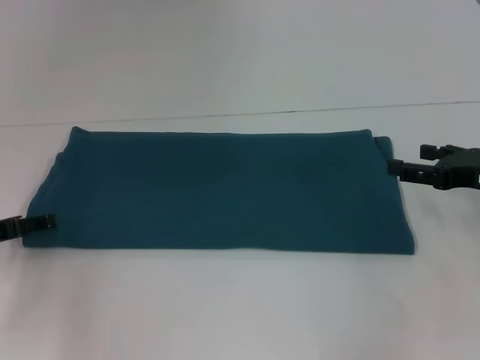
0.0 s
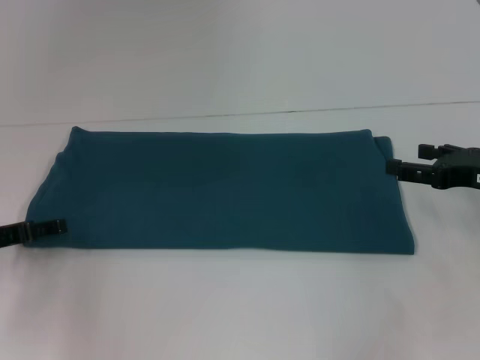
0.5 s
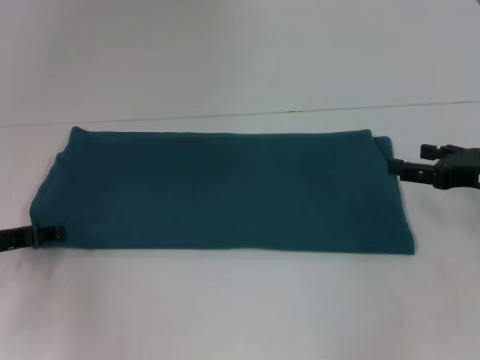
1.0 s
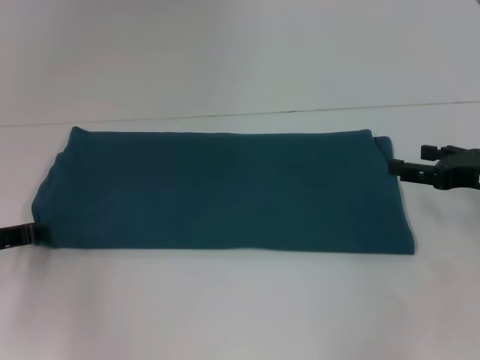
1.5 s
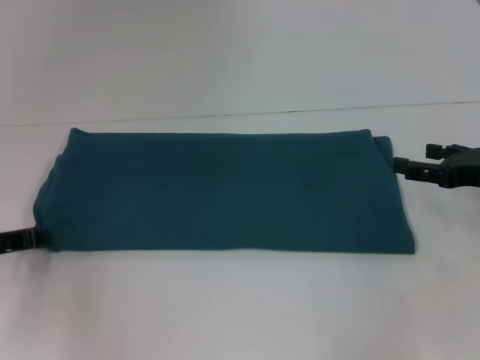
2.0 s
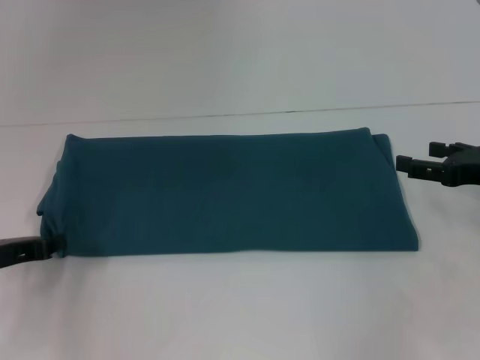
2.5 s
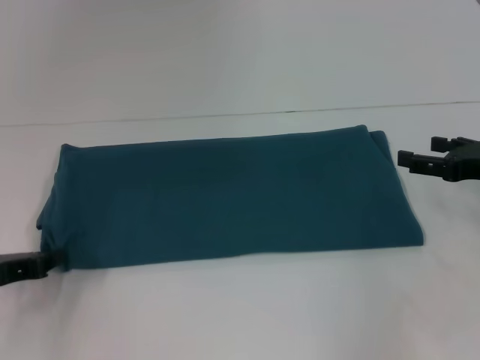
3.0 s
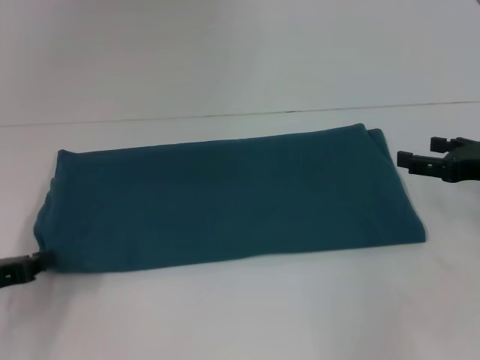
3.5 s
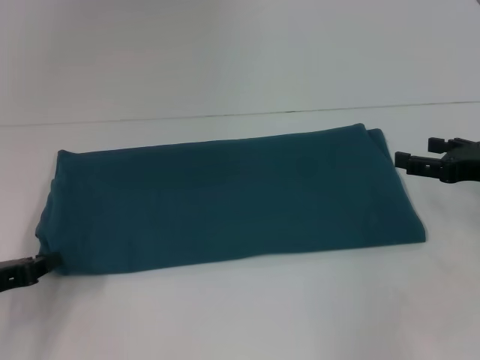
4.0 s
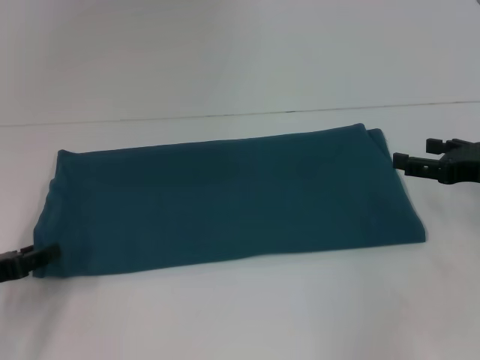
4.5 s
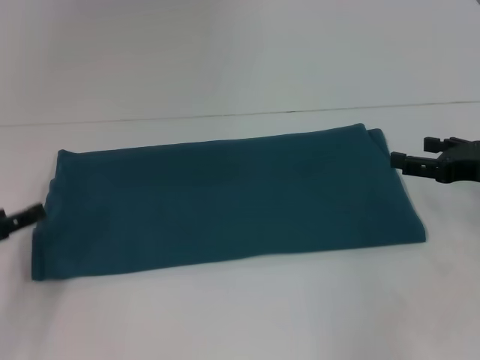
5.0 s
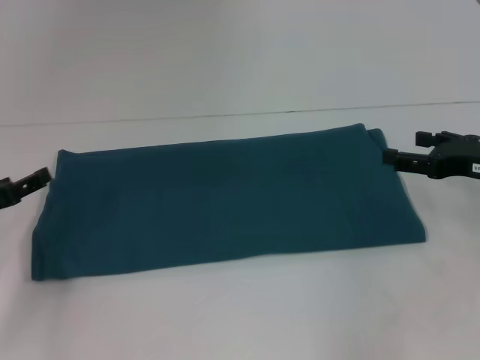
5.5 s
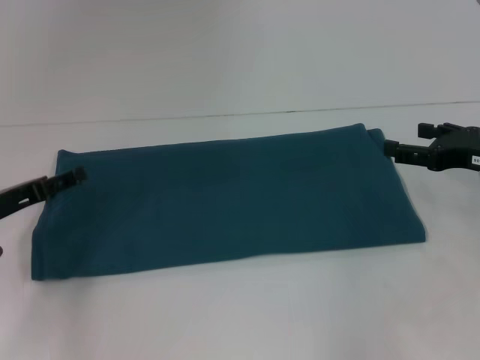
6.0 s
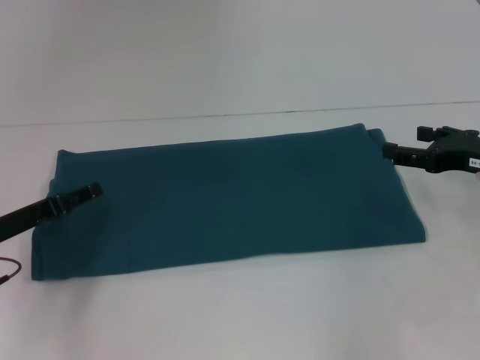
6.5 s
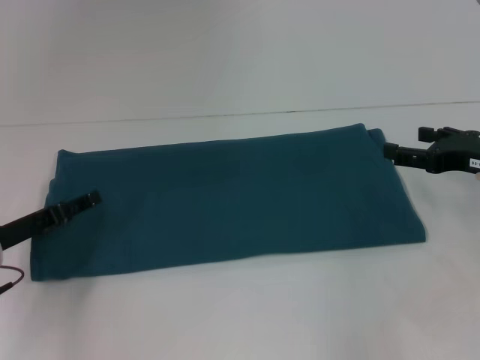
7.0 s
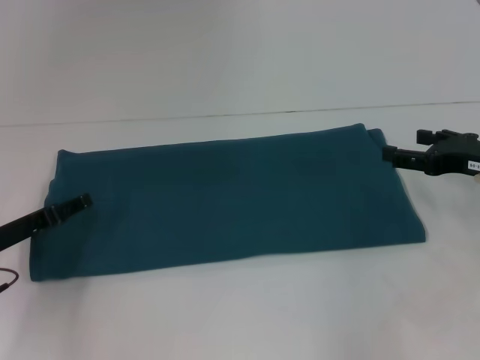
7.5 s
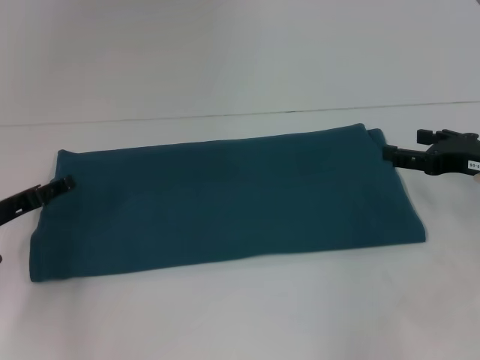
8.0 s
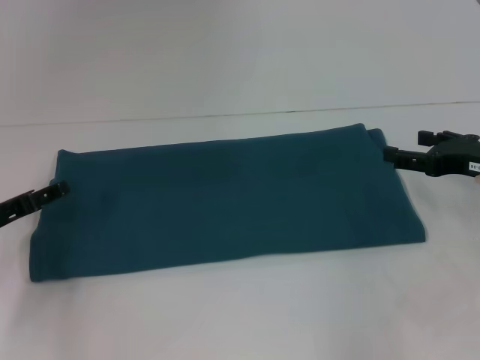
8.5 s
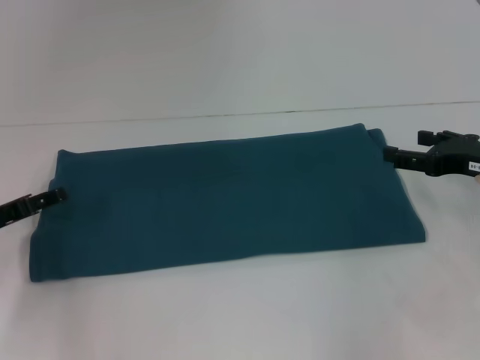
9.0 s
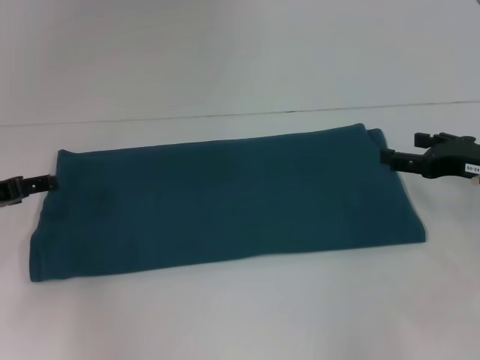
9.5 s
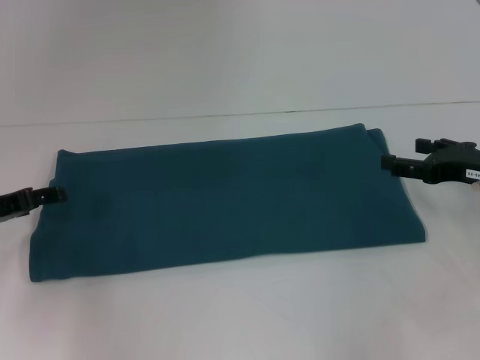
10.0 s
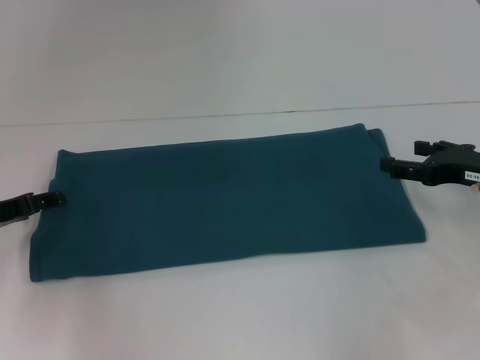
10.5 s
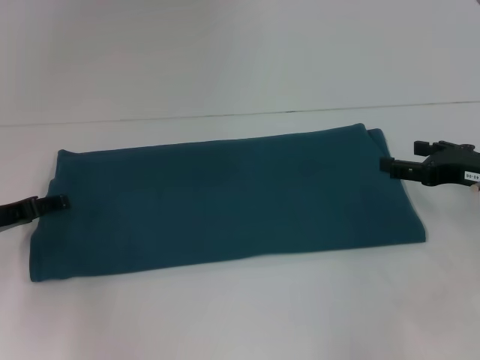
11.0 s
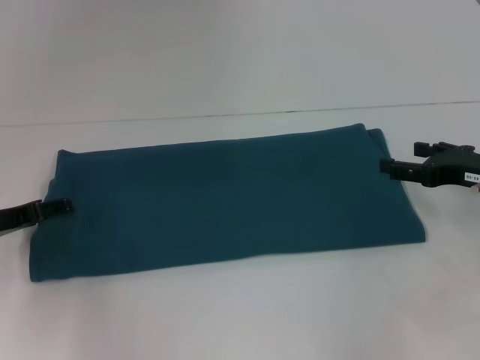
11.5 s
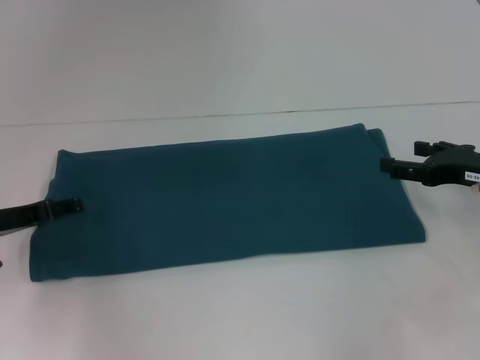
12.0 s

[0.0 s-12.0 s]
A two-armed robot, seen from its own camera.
0.0 to 2.0 s: The left gripper closes.
2.0 to 4.0 s: The left gripper travels backward by some 5 cm.
4.0 to 6.0 s: The left gripper goes approximately 5 cm forward, and opens.
6.0 to 12.0 s: The grippers make only small movements.

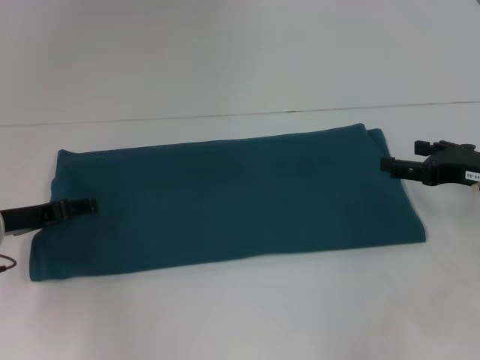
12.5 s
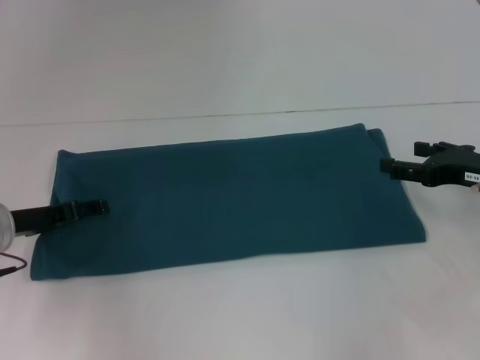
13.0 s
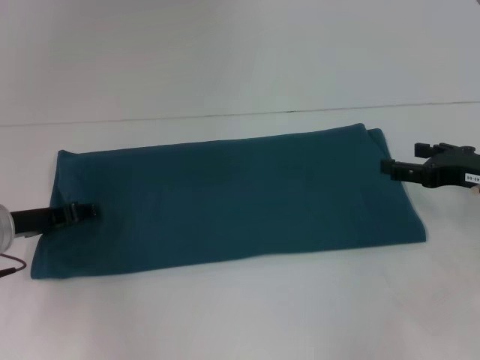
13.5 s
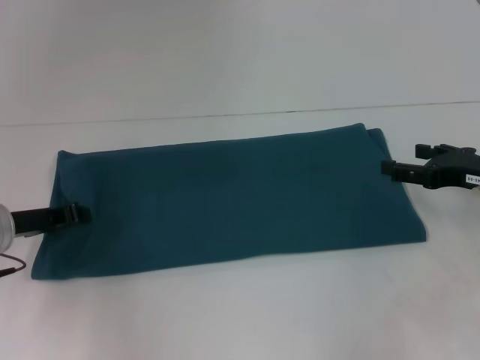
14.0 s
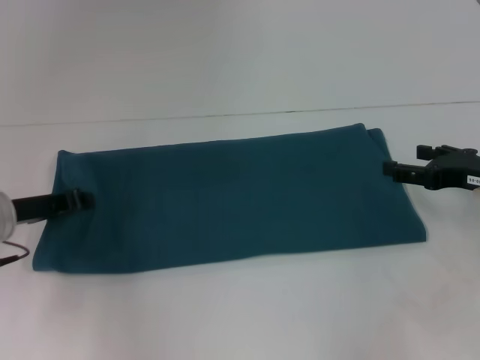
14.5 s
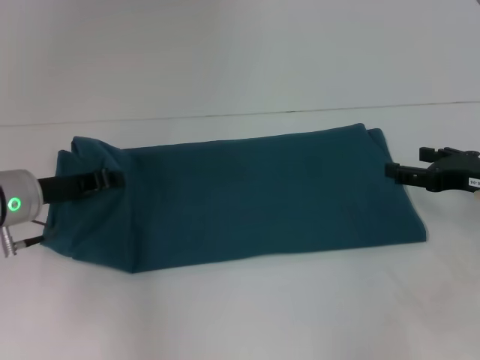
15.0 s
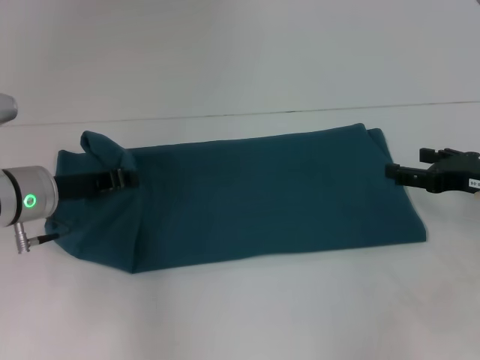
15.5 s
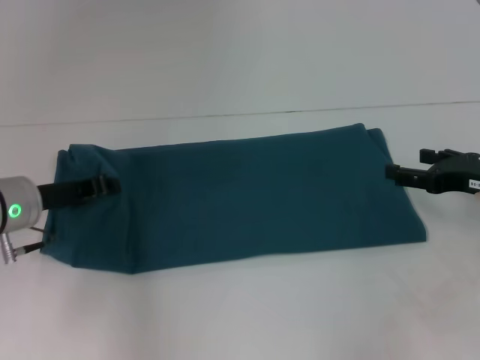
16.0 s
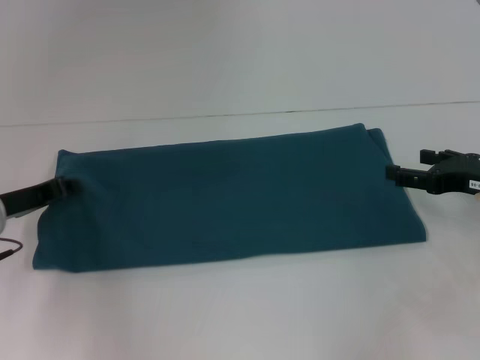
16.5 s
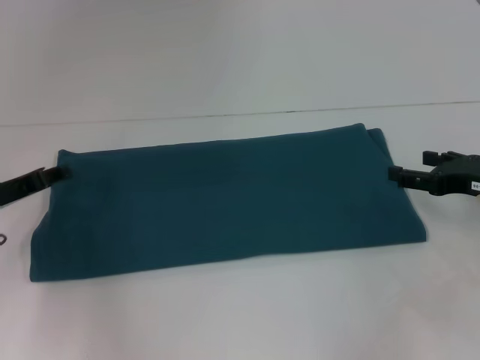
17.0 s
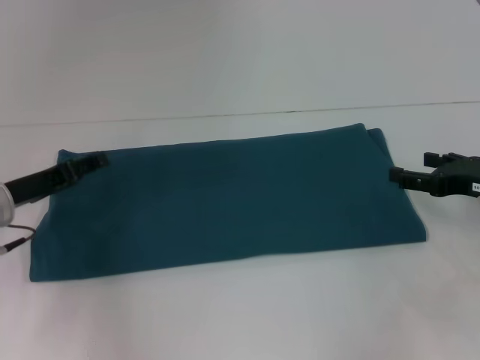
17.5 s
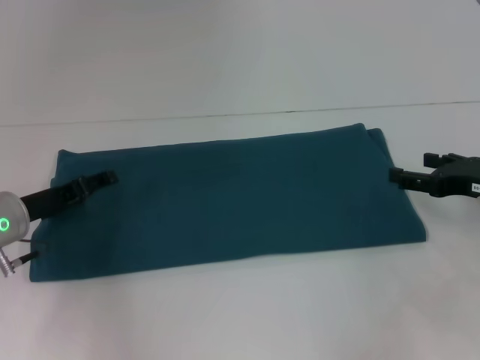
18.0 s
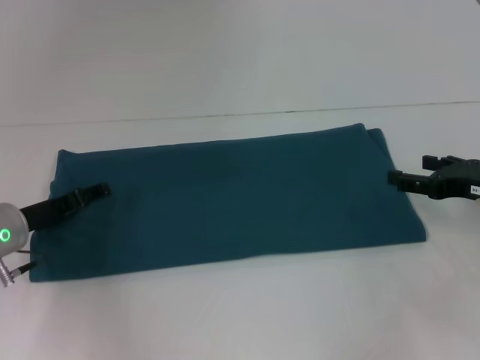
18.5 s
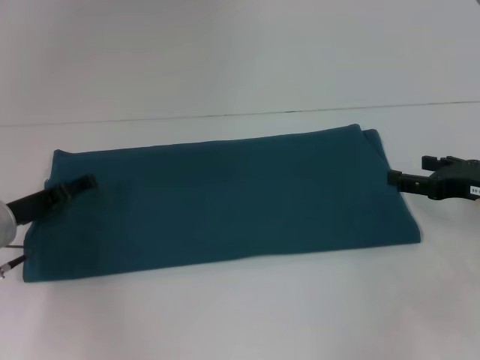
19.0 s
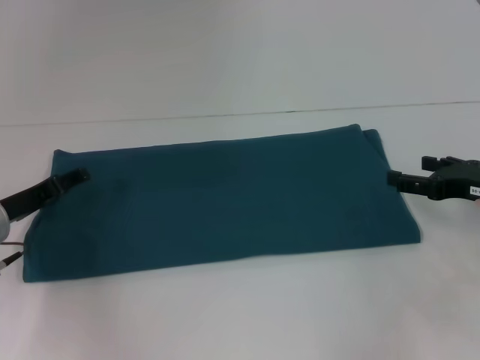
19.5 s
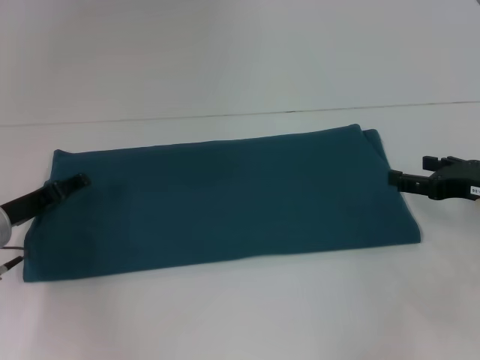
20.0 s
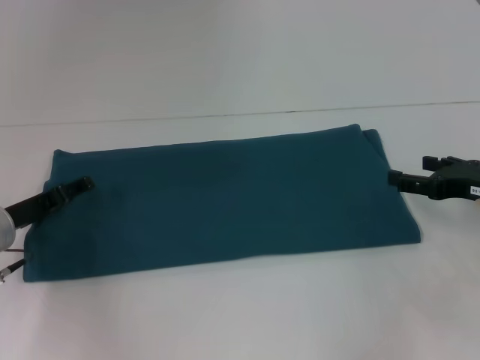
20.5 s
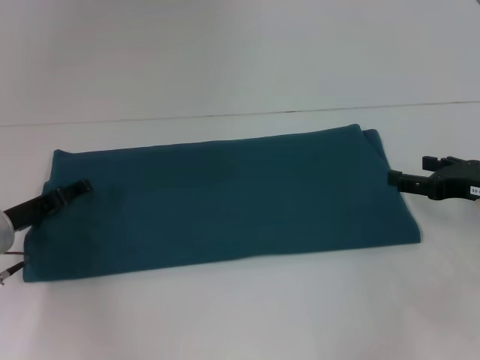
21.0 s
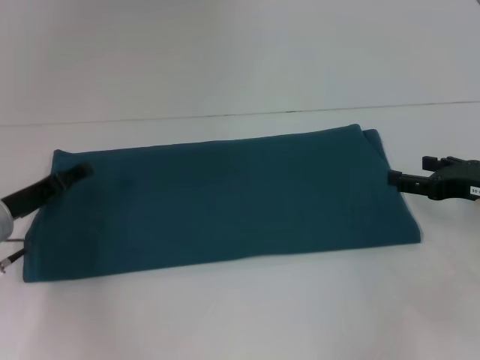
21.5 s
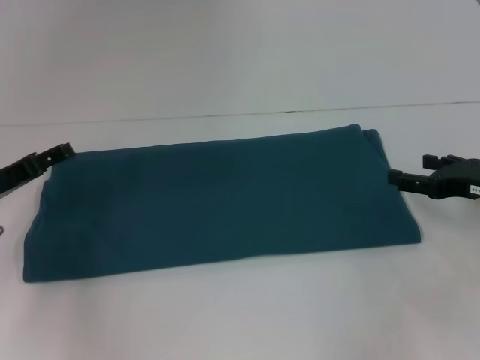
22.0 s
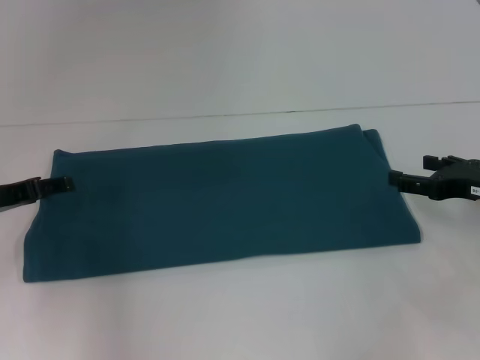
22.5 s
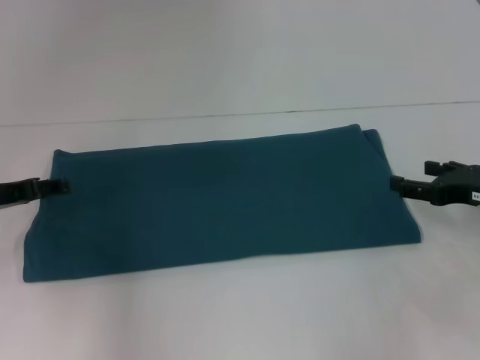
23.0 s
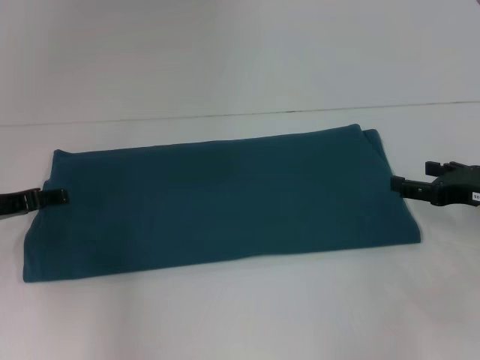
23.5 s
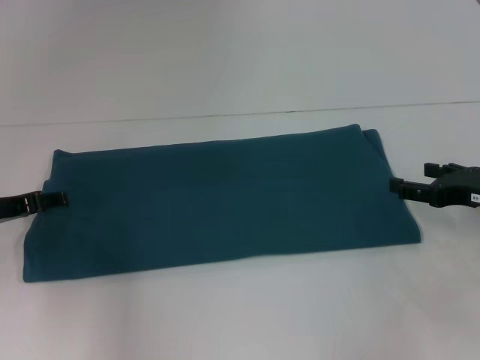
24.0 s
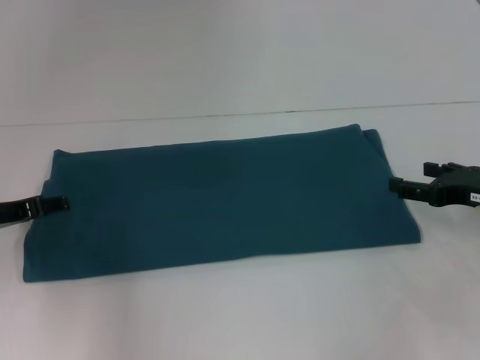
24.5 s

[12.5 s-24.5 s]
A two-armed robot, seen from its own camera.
12.5 to 14.5 s: The left gripper closes its fingers.
14.5 to 16.5 s: There are only small adjustments of the grippers.
16.5 to 18.5 s: The left gripper opens up.
18.5 to 20.5 s: The grippers stay close to where they were, moving slightly.
20.5 to 22.5 s: The left gripper shifts by about 5 cm.
22.5 to 24.5 s: The grippers stay close to where they were, moving slightly.

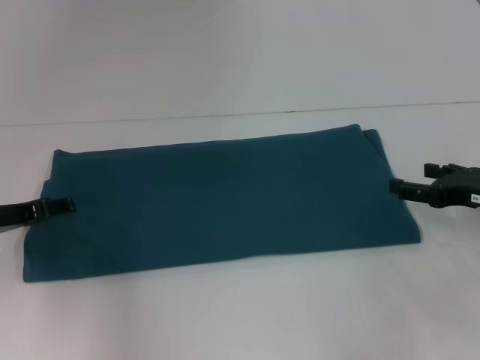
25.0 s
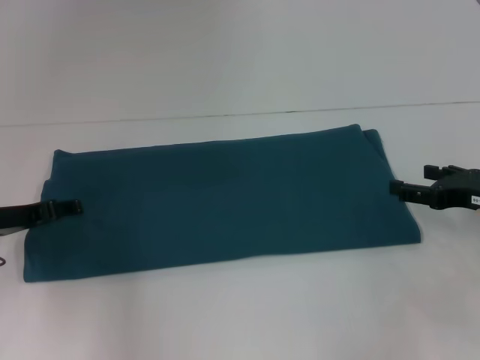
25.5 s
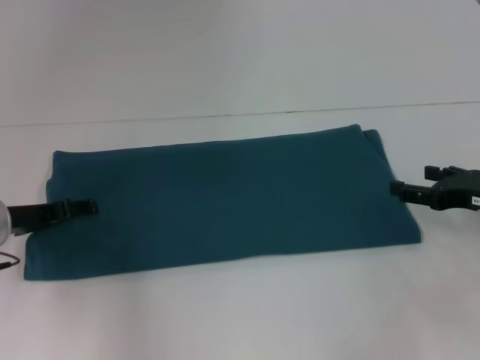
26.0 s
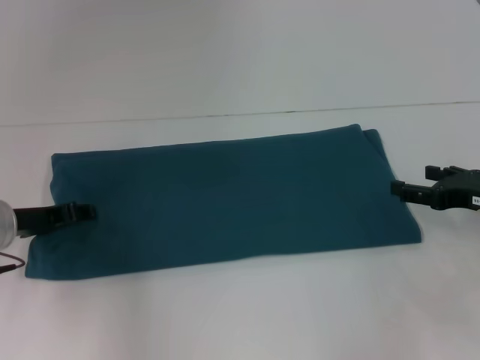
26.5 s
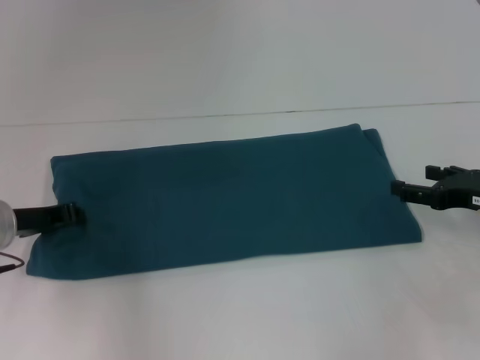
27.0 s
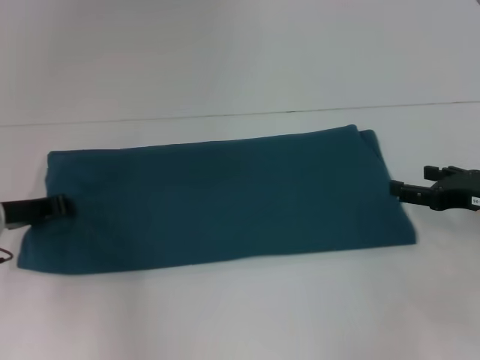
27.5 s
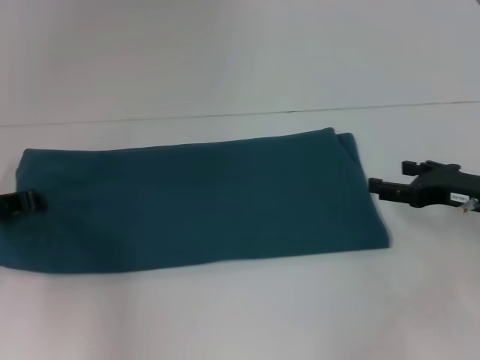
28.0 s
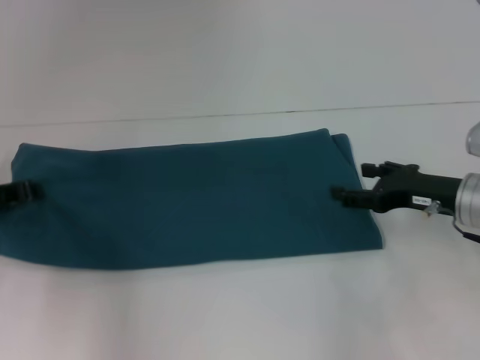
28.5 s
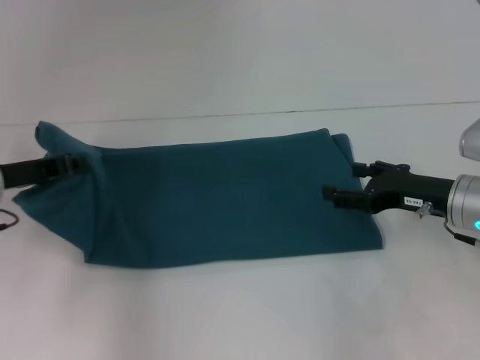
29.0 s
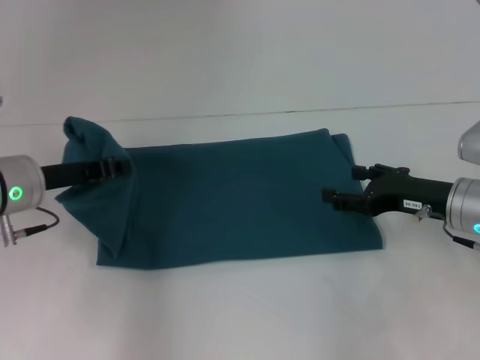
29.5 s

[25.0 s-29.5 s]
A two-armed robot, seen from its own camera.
25.0 to 27.0 s: The left gripper closes up.
27.0 to 29.5 s: The right gripper moves to the left, about 5 cm; the left gripper moves approximately 5 cm.
